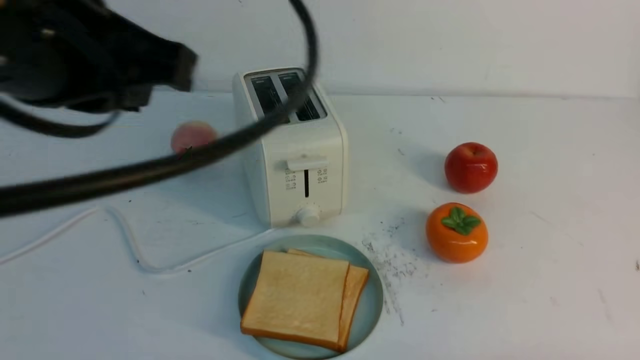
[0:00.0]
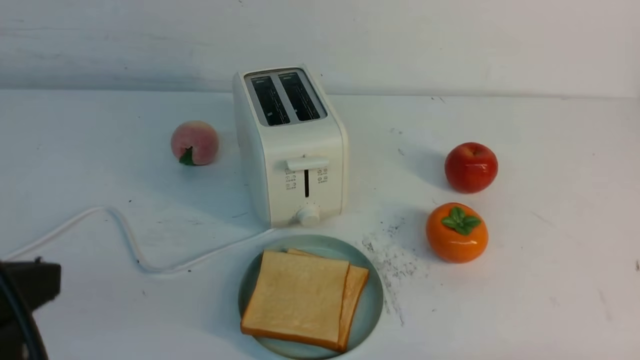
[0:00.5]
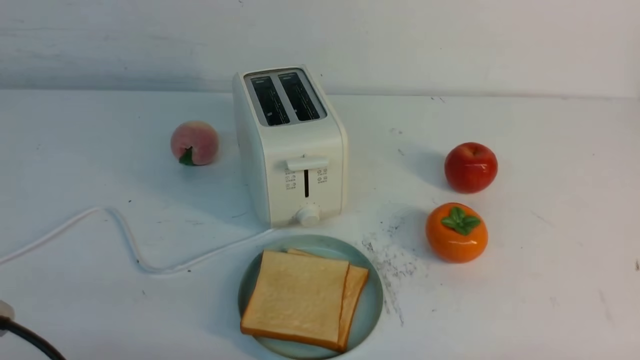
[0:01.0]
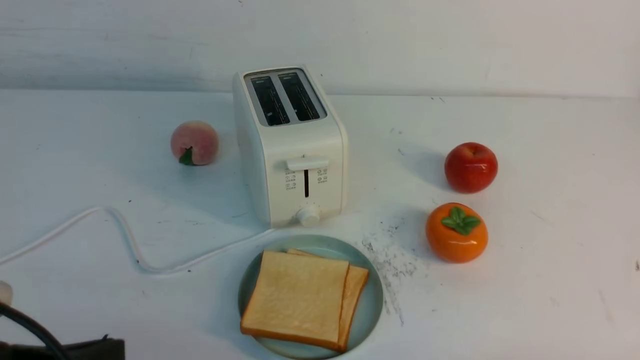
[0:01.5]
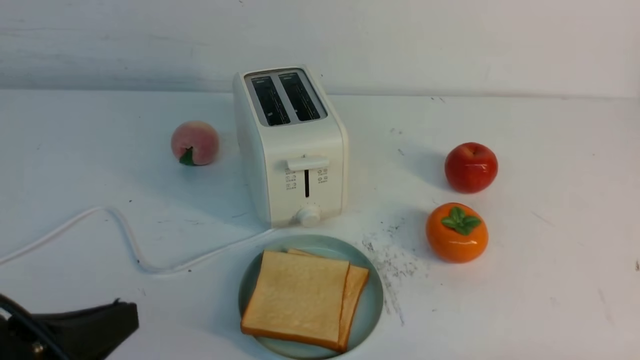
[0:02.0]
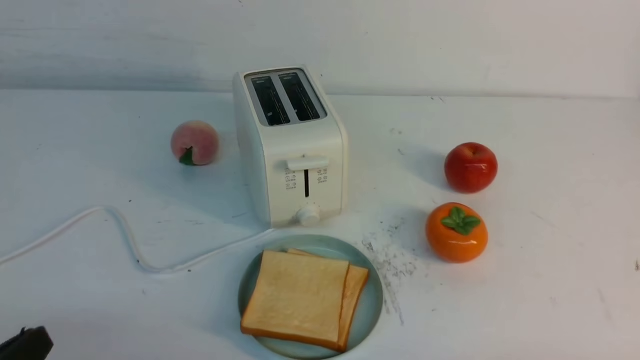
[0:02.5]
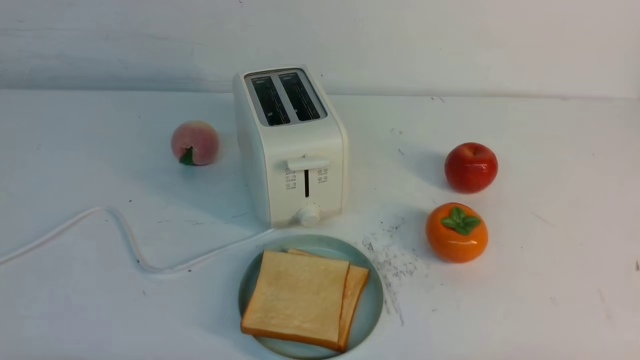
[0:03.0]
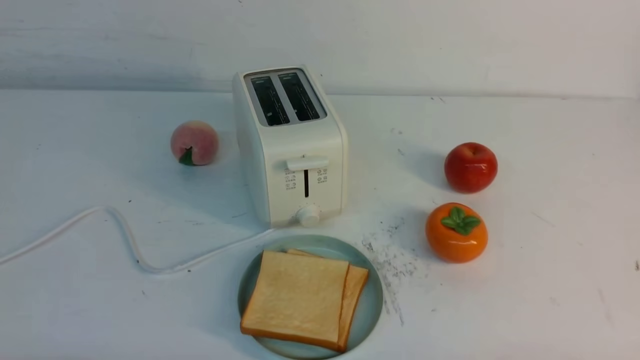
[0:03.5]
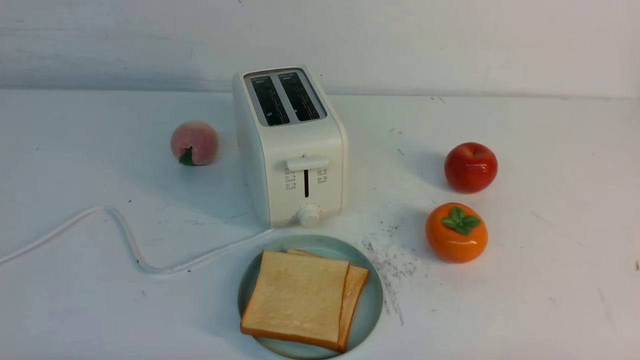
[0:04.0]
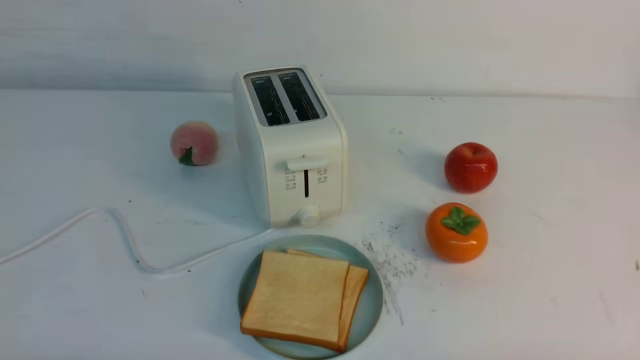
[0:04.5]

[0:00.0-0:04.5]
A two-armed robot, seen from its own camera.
Task of the whole recording: take toasted bread from bread machine on white table place on plate.
0:00.0 to 0:02.0: The left gripper shifts some 20 cm downward and backward.
0:02.0 to 0:04.5: The left gripper is displaced downward by some 10 cm.

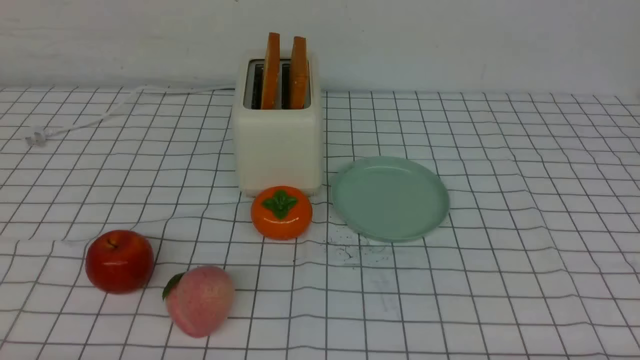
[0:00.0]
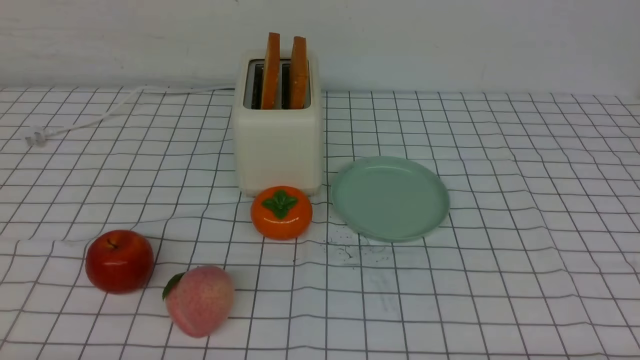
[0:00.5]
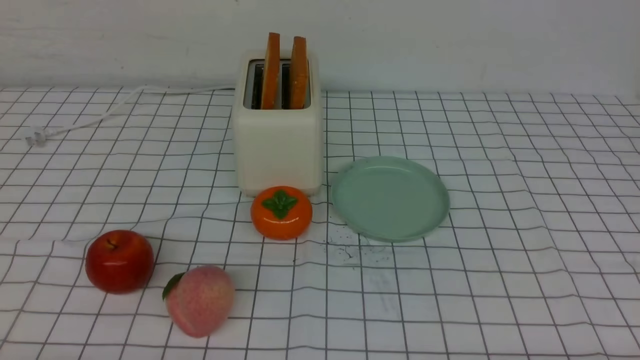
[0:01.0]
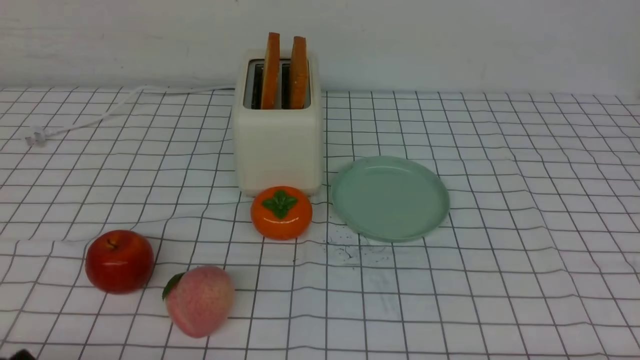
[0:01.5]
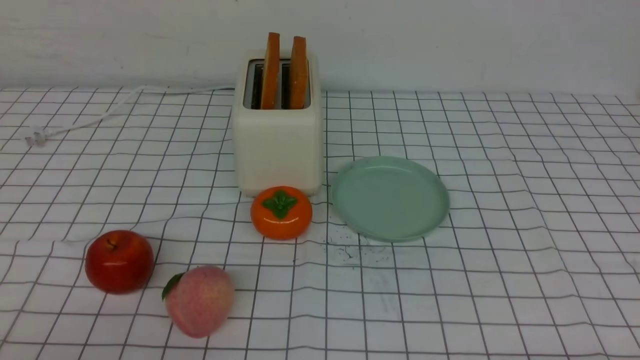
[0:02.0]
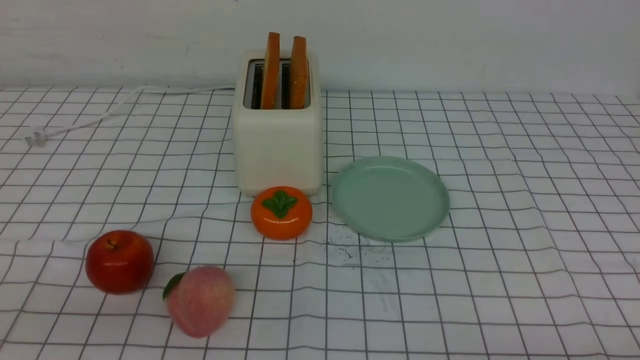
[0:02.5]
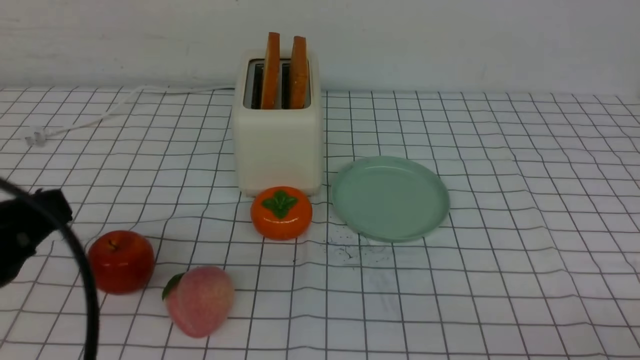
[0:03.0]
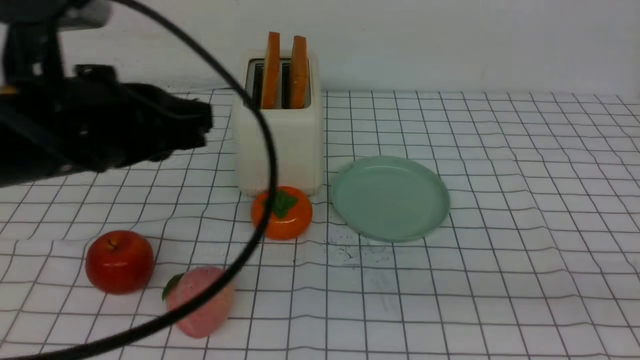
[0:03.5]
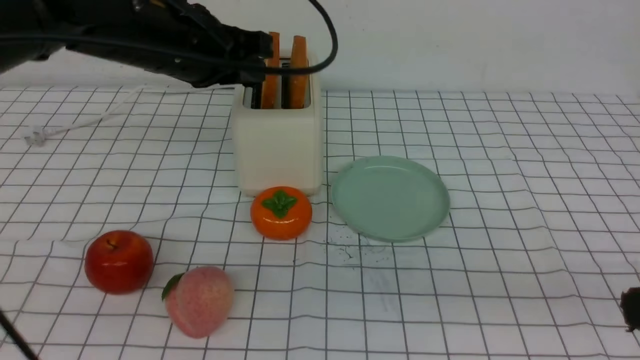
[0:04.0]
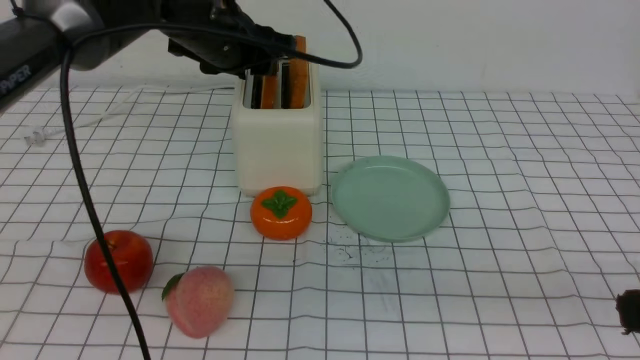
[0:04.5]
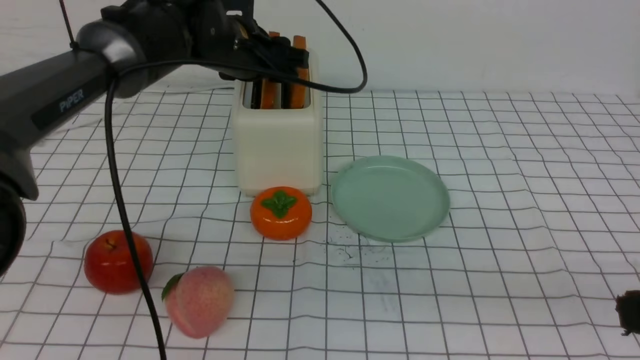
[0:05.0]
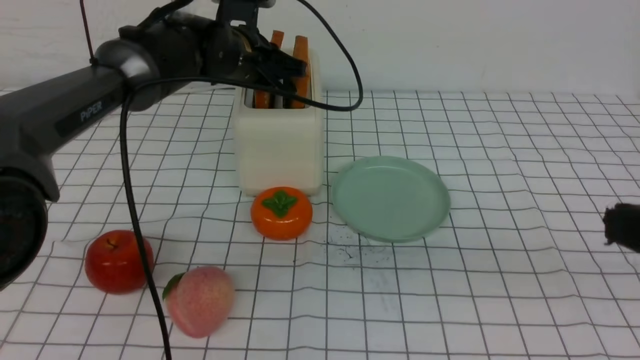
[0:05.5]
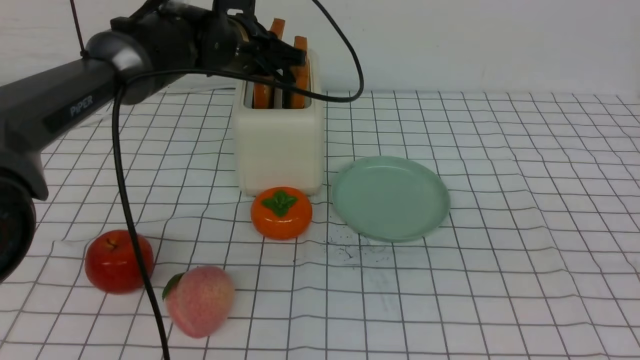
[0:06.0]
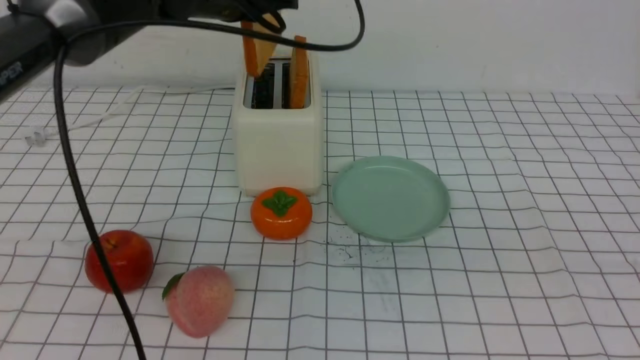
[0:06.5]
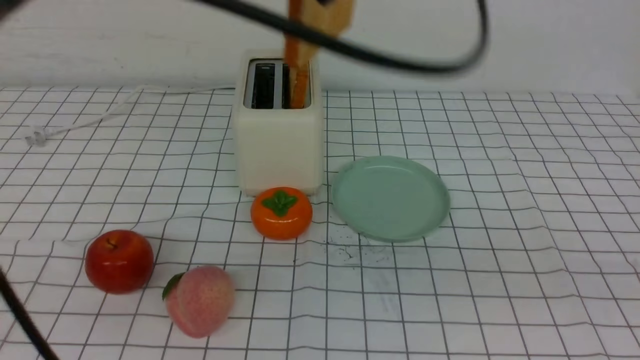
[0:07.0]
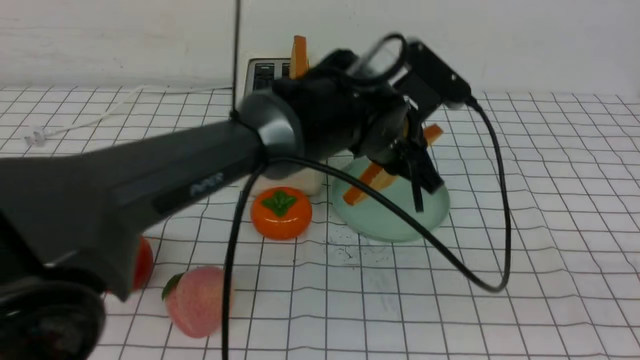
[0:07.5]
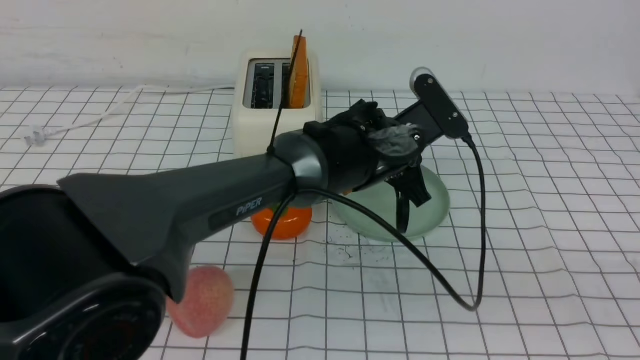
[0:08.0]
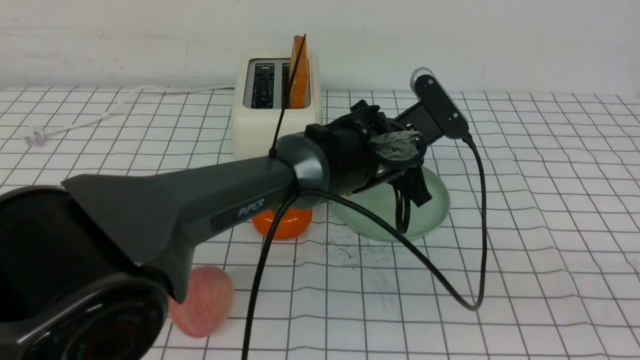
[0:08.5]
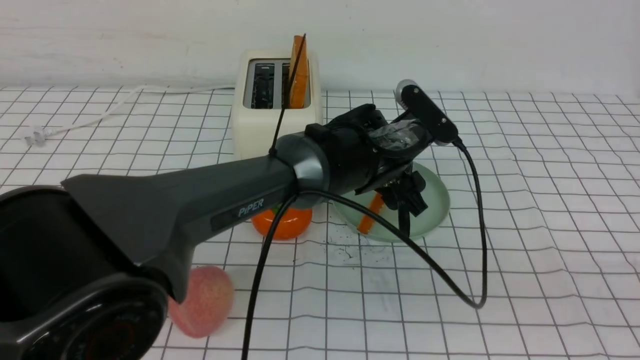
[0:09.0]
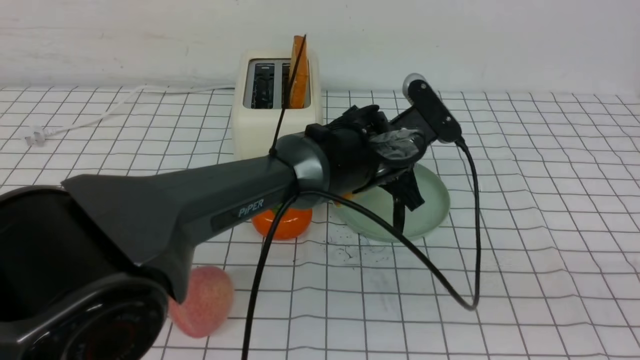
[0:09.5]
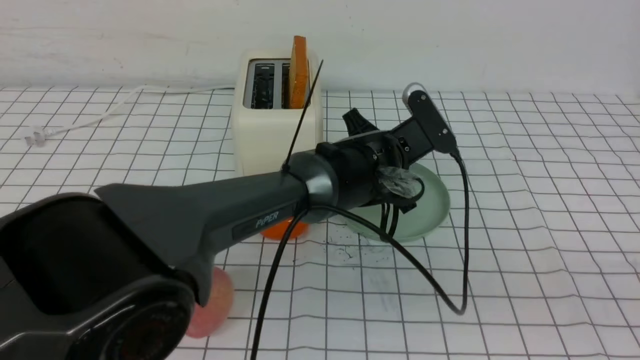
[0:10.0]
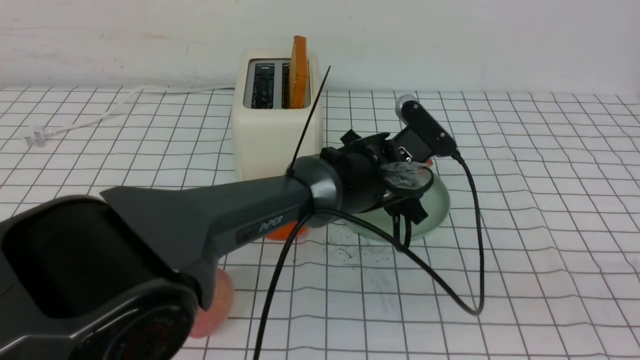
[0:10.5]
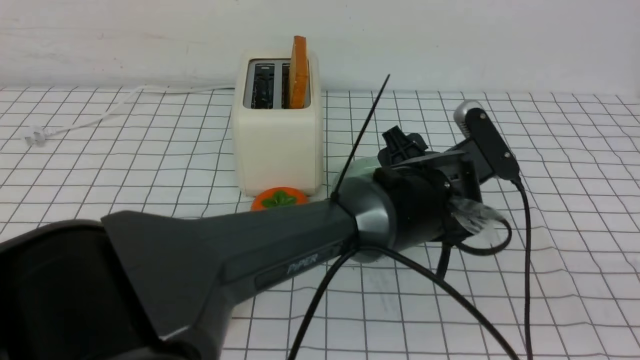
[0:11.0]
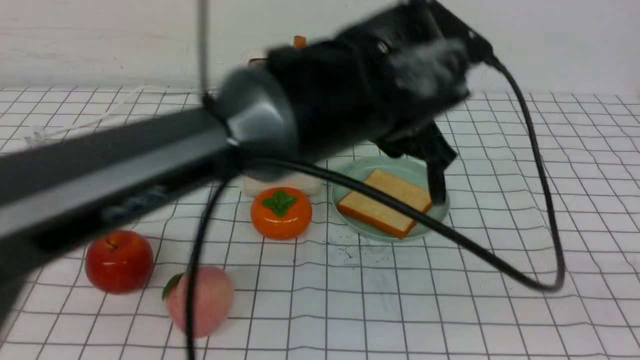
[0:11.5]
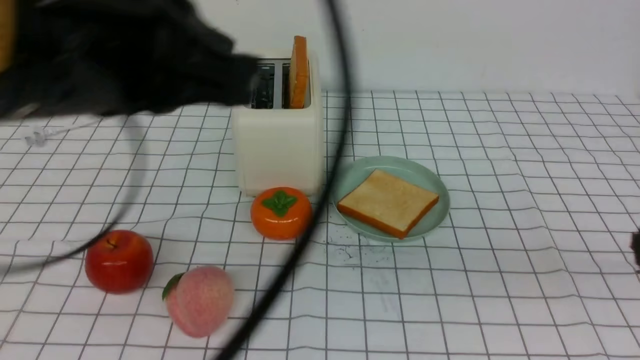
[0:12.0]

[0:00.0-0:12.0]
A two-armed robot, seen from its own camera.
Task of the whole recording: take toasted bread from bread machine on white checkered table place on plate.
Step, 0:00.0 to 0:06.0: use the left arm to take out a slice of bread.
Step, 0:06.5 to 0:11.0: use the left arm to put a slice of bread into the empty plate.
0:02.0 to 0:04.0: The right gripper moves upward, some 20 cm, and closes. Meanwhile the left gripper heads forward, upward and to the right, covering approximately 40 cm.
0:04.0 to 0:06.0: The left gripper moves forward and downward, approximately 10 cm, and opens, then closes once more; the right gripper heads upward, covering about 5 cm.
0:06.0 to 0:08.0: The left gripper shifts about 20 cm to the right, backward and downward. The right gripper is displaced backward by roughly 5 cm.
0:08.0 to 0:10.0: The left gripper opens, then closes again.
0:10.0 to 0:12.0: The left gripper moves backward, upward and to the left, some 40 cm, and opens, then closes once more; the right gripper goes approximately 10 cm forward.

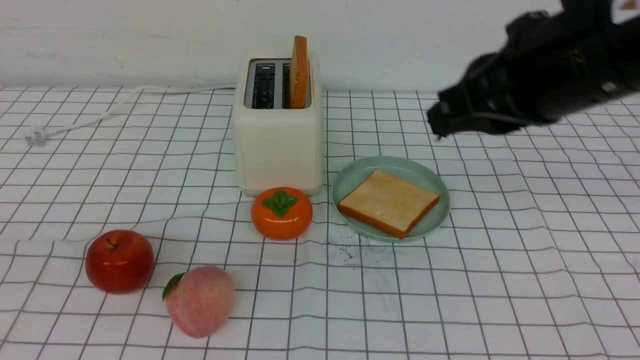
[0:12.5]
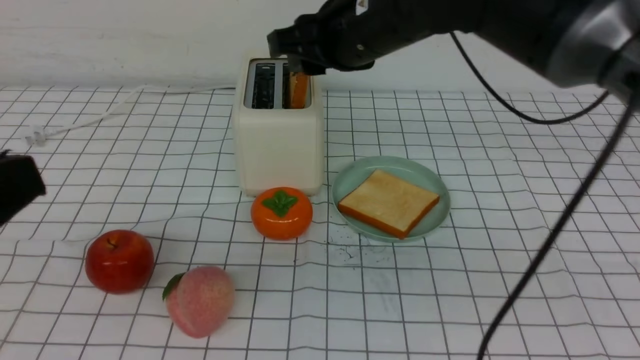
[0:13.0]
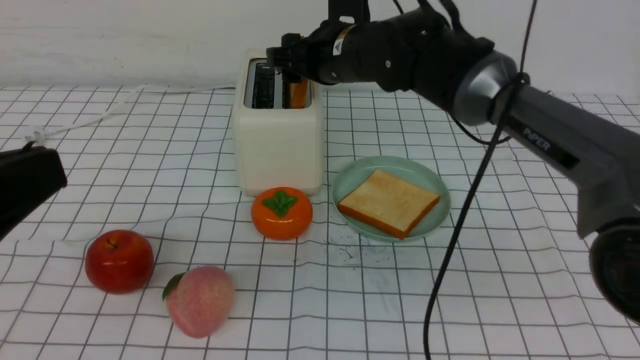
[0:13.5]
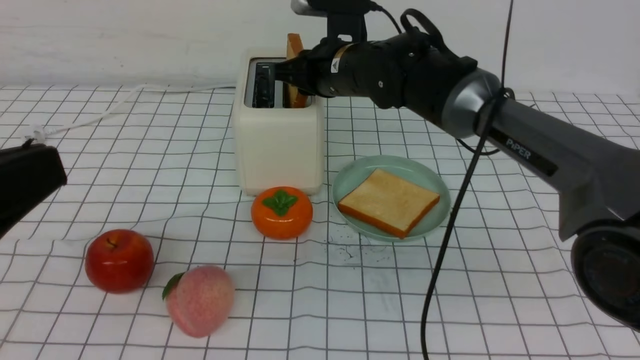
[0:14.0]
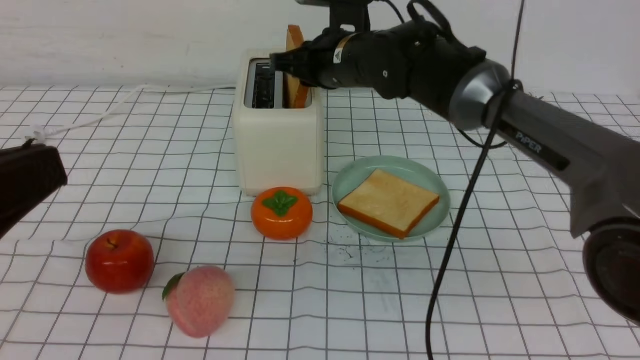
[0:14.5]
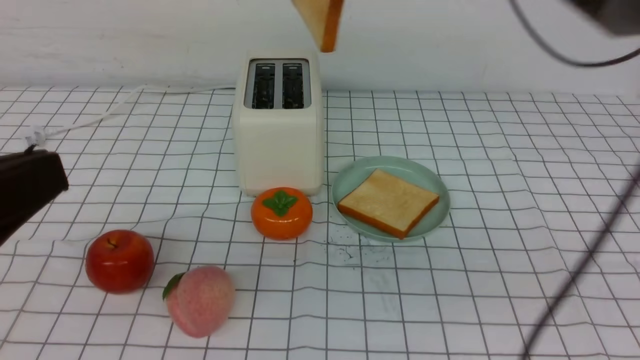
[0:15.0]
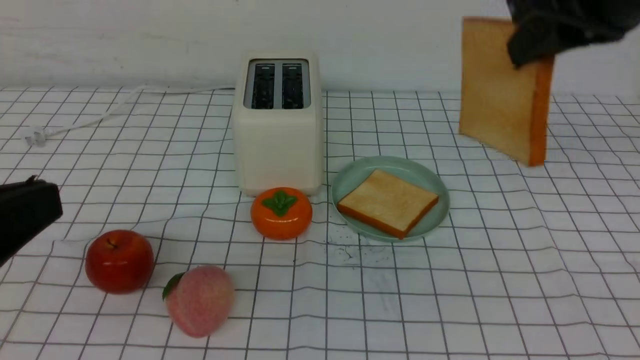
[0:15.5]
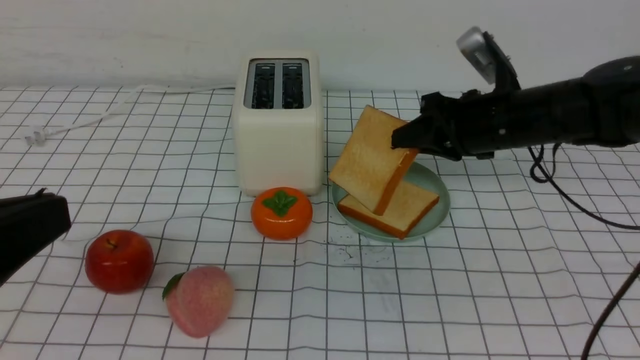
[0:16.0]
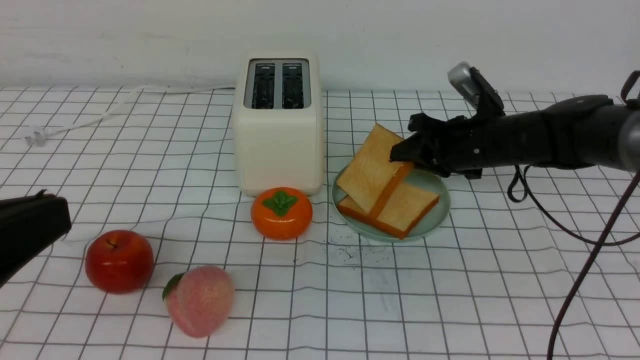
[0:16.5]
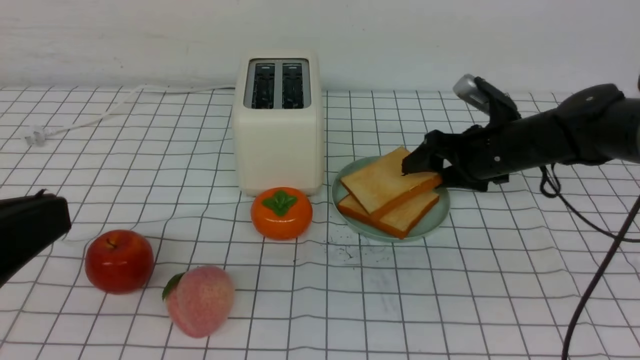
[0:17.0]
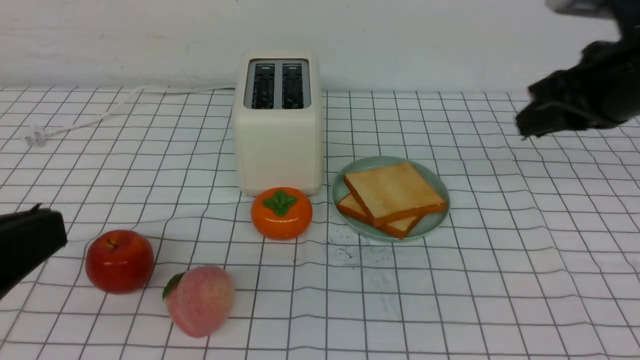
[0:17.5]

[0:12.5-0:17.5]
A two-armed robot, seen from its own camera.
Task of the whole recording: take toasted bread from bread machine on white checkered table place on plate.
Step, 0:12.5 to 0:14.5: use the right arm to take out a slice of bread.
Step, 0:15.0 to 0:17.0: use the right arm to put a slice of bread into the plate.
0:12.5 to 0:15.0: The right gripper shifts some 15 cm forward, and opens, then closes once more.
0:15.0 to 0:17.5: The right gripper goes roughly 20 cm to the right and backward, travels downward and back again, some 25 cm each way, and opens, then closes again.
